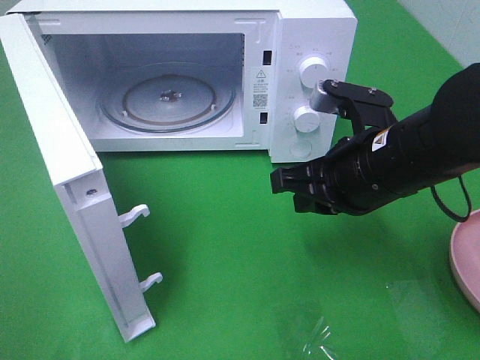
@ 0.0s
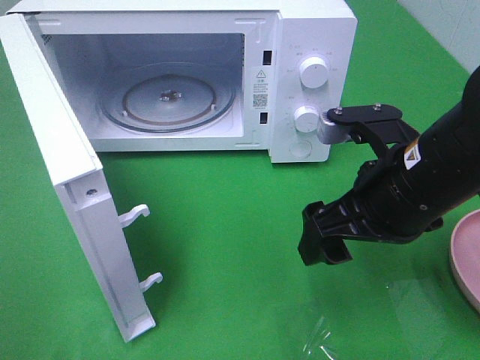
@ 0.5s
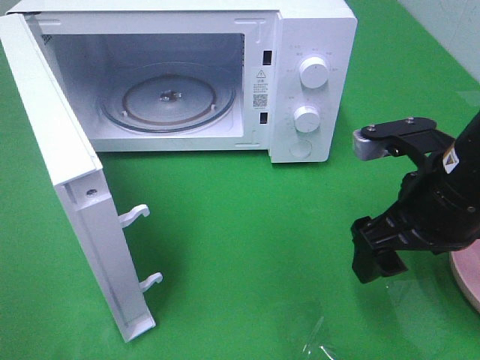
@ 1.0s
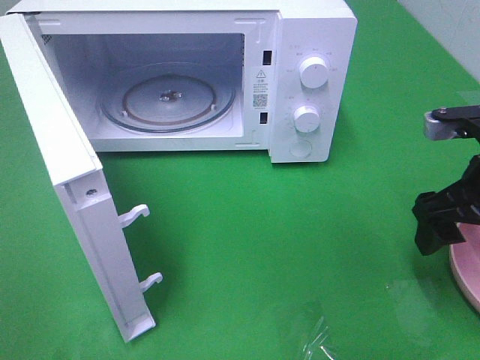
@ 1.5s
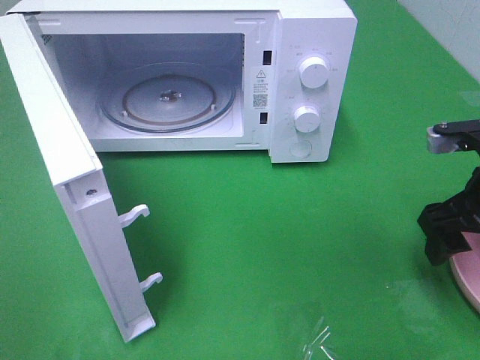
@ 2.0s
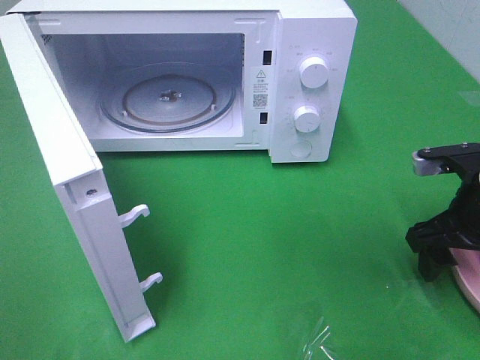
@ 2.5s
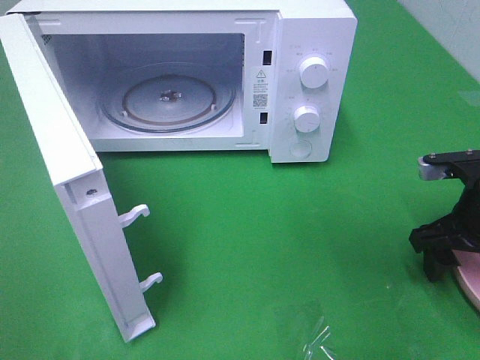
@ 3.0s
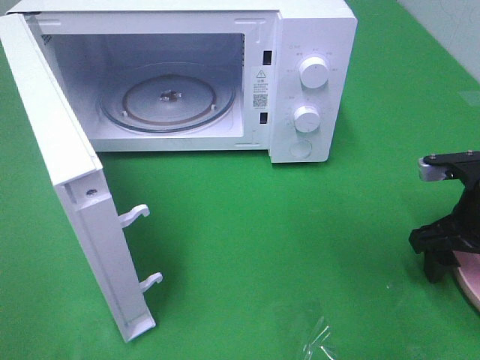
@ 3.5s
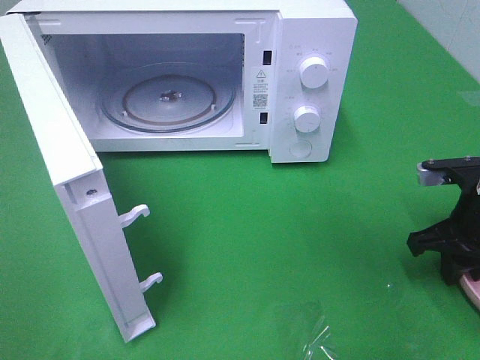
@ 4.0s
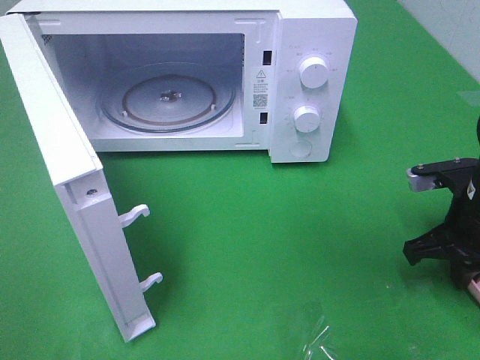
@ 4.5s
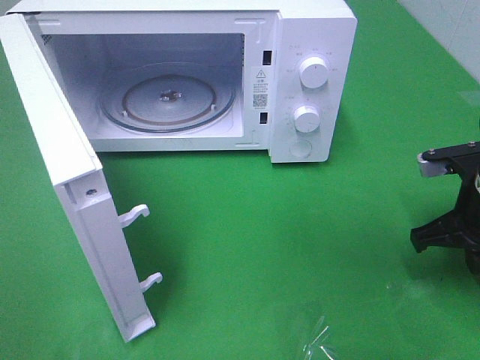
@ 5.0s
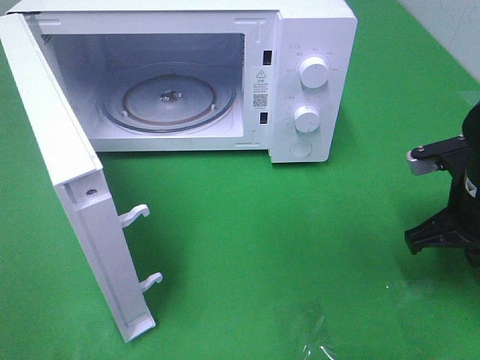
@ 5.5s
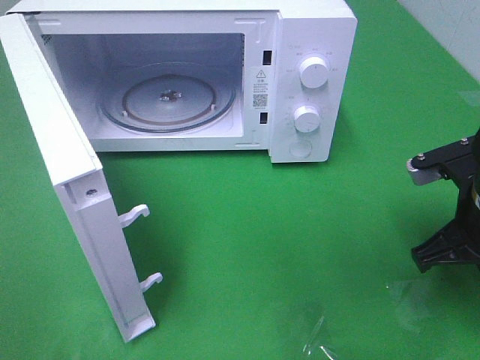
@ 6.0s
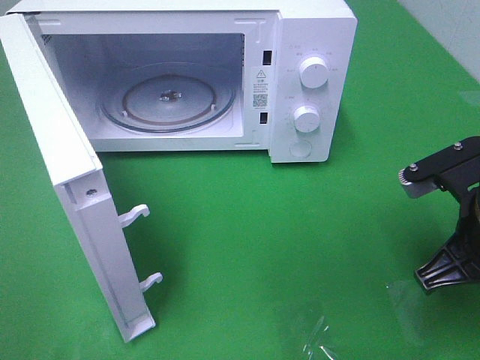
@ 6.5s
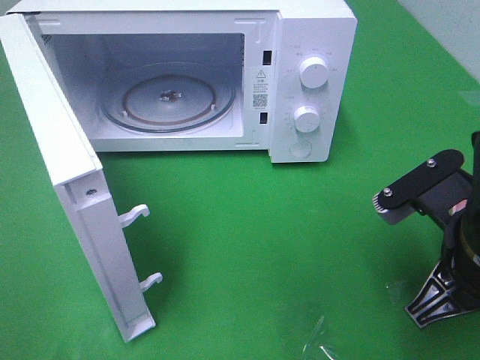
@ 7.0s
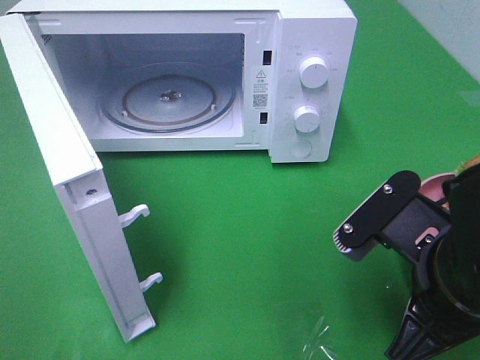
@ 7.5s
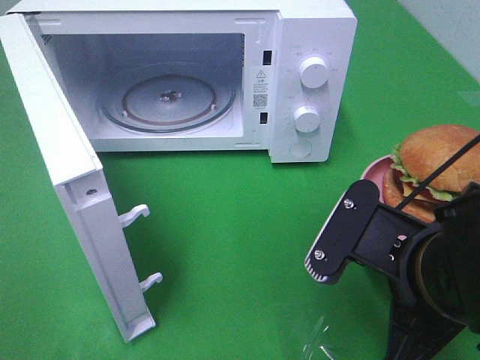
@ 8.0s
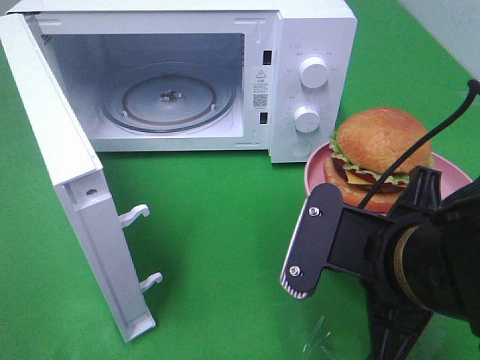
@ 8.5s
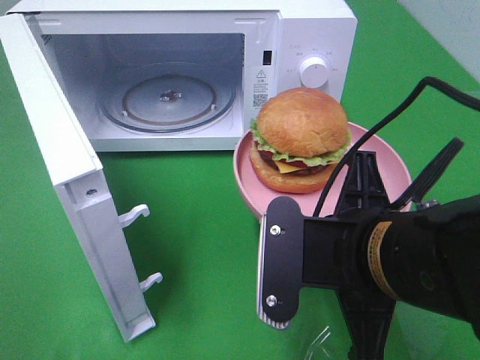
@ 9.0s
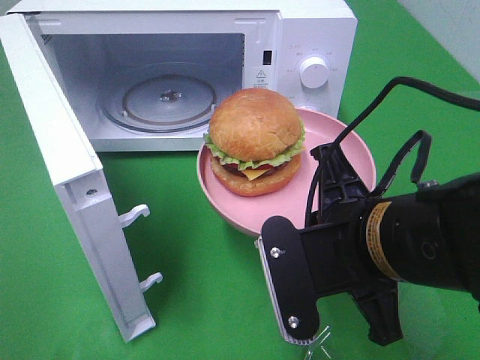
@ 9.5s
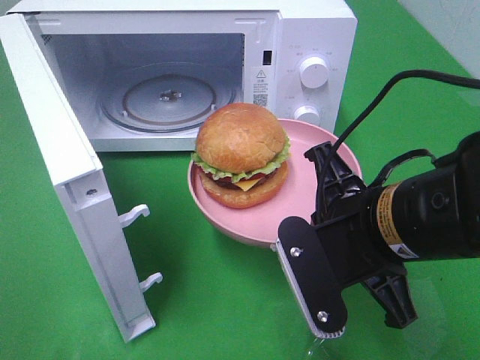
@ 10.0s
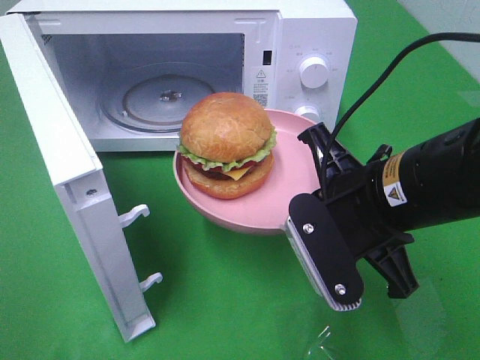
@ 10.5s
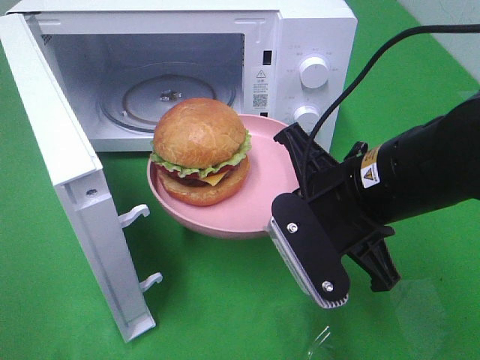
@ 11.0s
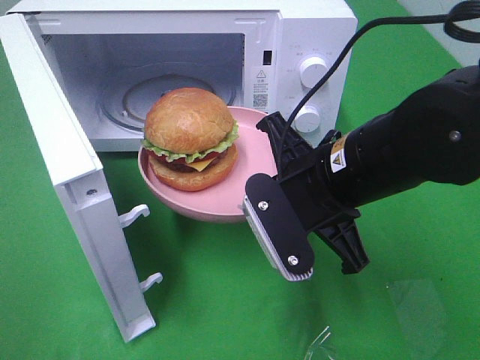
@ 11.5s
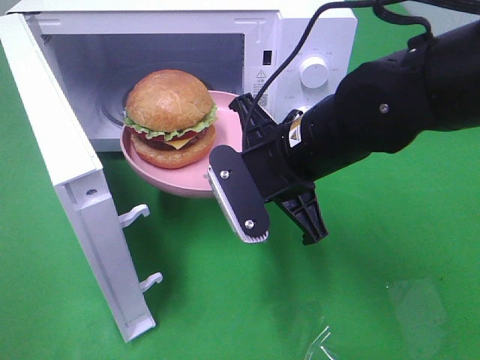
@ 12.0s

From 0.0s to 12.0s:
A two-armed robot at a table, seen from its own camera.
Task of the whole recording: Heat the burger.
Step, from 0.0s to 4.5s: Right hand: grab the plate with the hamburger.
From 0.0s to 2.0s: The right gripper travels to the right by approximately 15 cm, and opens its fingers.
From 2.0s to 4.0s: The right gripper moves downward, about 5 cm, and closes up.
From 4.0s to 6.0s: The right gripper goes approximately 5 cm upward.
From 6.0s to 8.0s: The right gripper is displaced to the left and backward by approximately 15 cm.
From 10.0s to 12.0s: The right gripper goes some 10 cm forward and to the left.

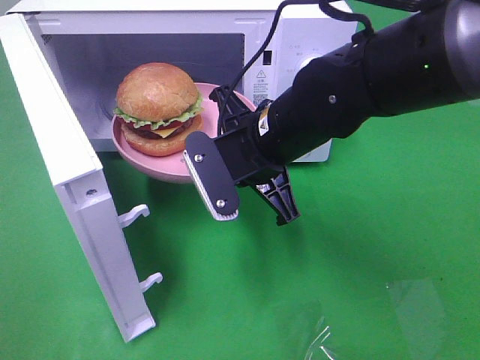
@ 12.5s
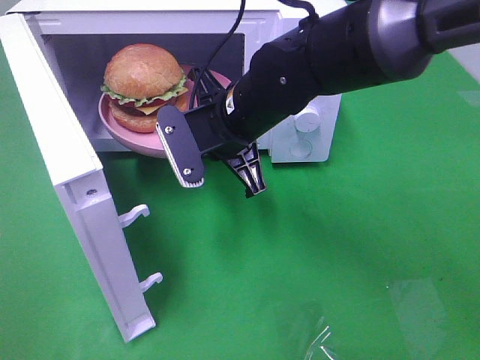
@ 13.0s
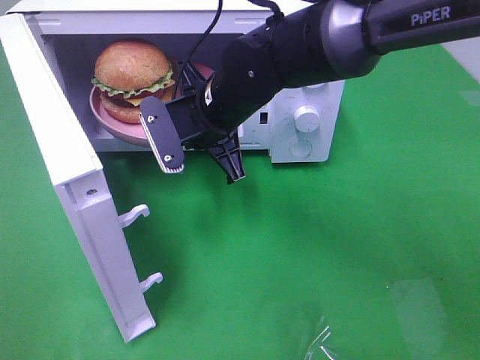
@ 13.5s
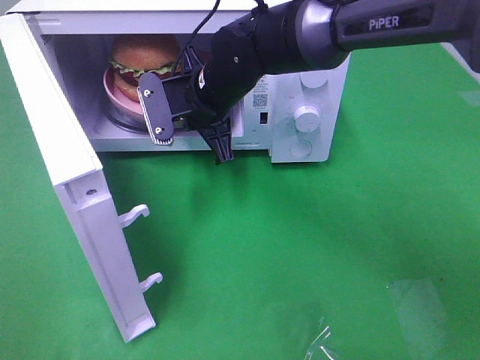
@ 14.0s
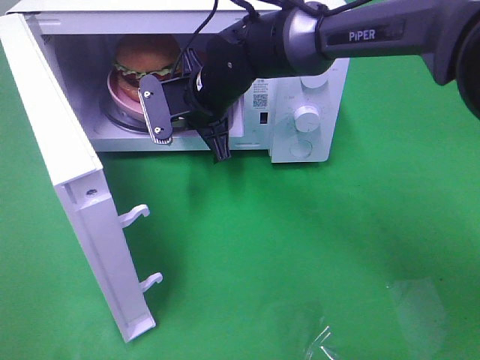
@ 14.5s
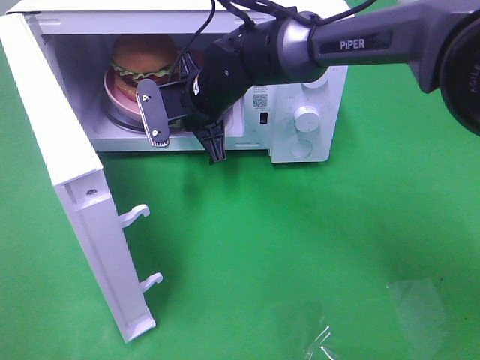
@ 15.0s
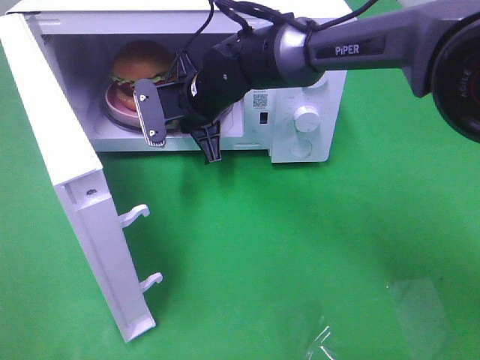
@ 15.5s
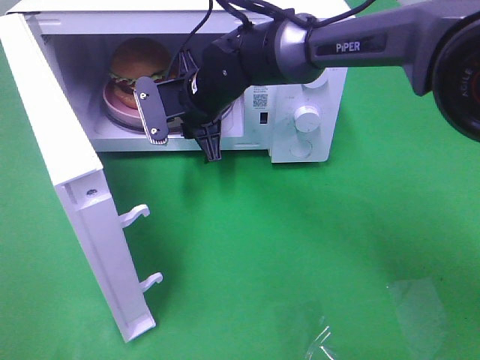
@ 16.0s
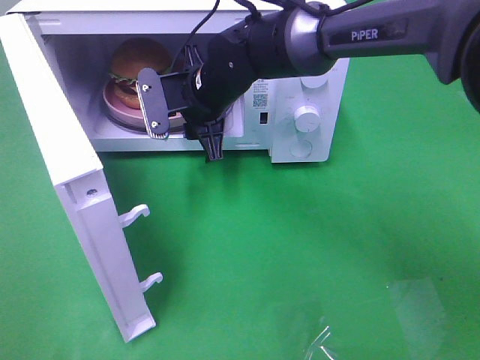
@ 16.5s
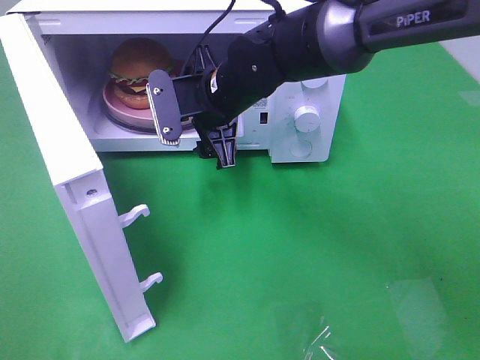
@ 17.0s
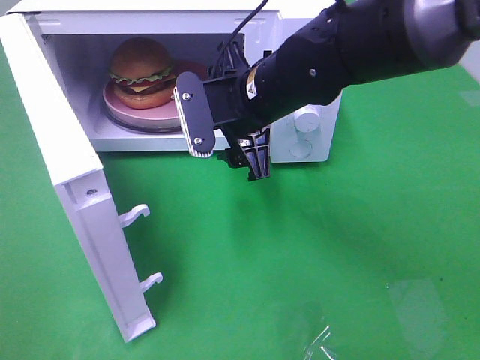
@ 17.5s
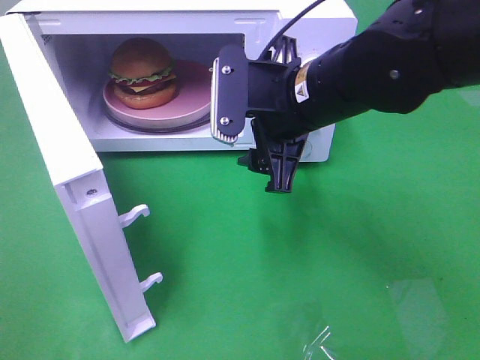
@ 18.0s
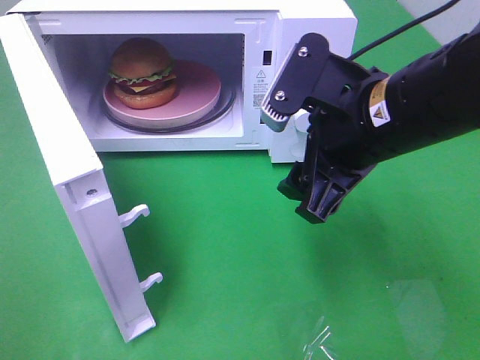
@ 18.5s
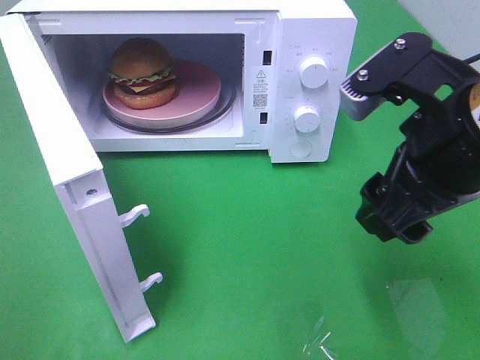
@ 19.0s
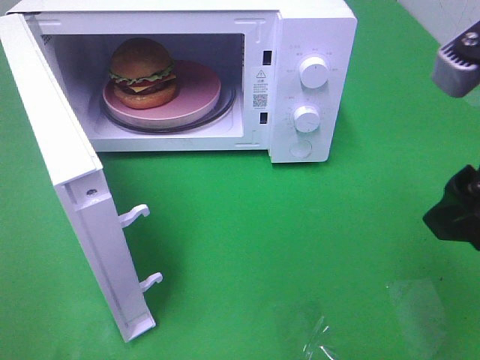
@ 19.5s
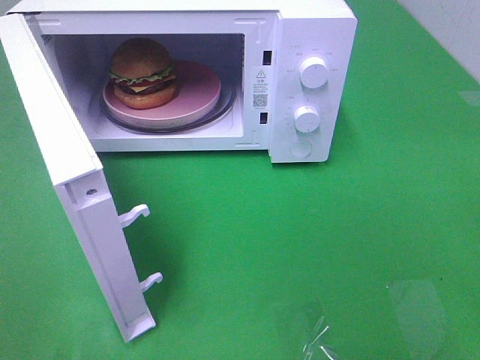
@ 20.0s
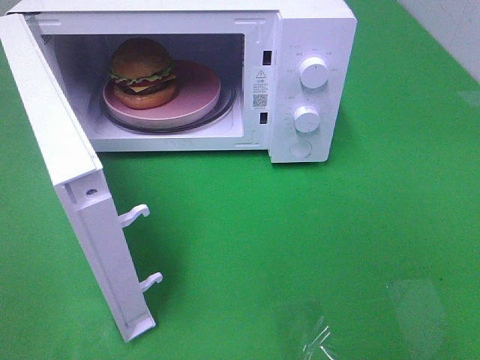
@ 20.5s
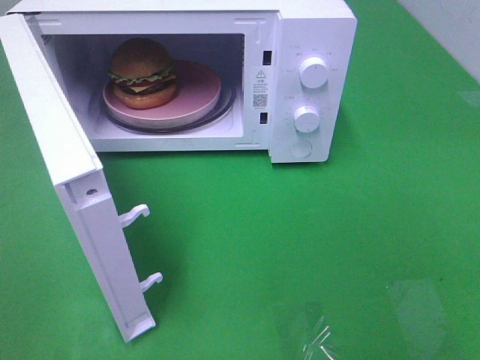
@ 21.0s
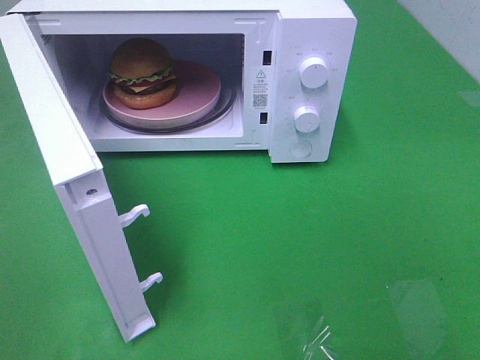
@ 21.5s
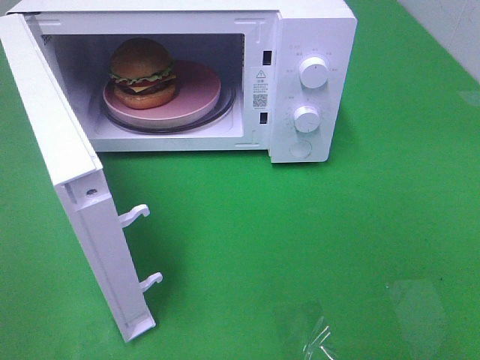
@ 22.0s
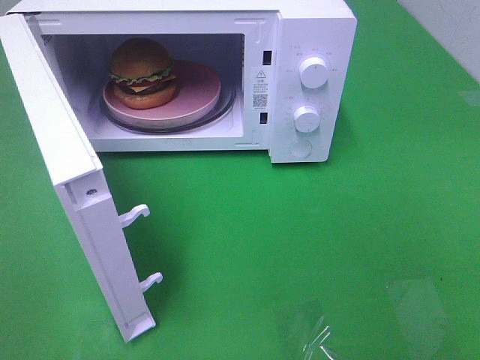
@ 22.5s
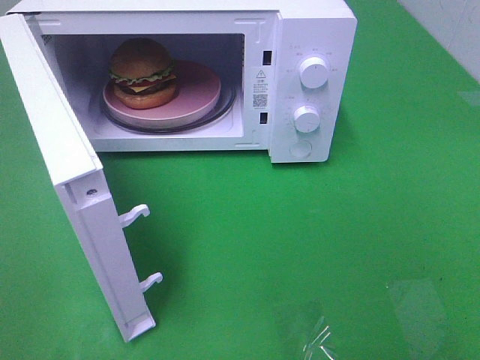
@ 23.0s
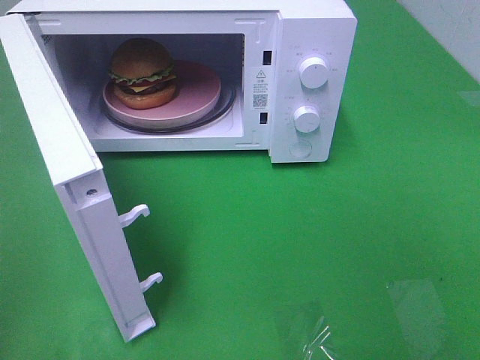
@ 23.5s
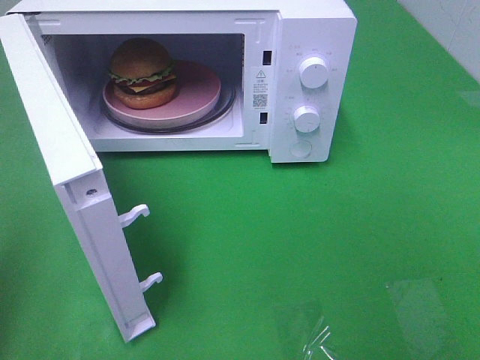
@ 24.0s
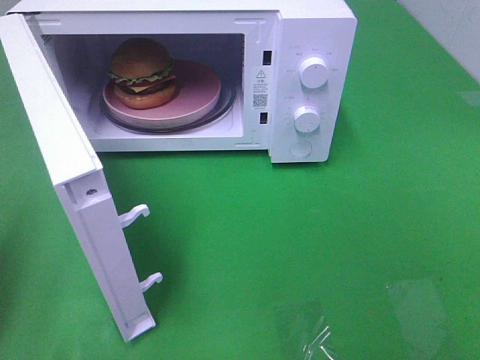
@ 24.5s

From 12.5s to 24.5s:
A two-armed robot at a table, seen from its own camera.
Task of the whole recording: Heat the burger.
Step, from 12.5s to 16.5s: Right hand: place the plate in the microwave.
From 12.5s to 14.5s: The right gripper travels forward and to the left by about 15 cm.
From 14.5s to 16.5s: The right gripper opens.
From 16.5s to 18.5s: The right gripper goes roughly 25 cm backward, to the right and upward.
From 18.5s to 20.5s: The right gripper shifts about 25 cm backward and to the right.
From 22.5s to 24.5s: The left gripper heads forward, covering about 15 cm, and closes.

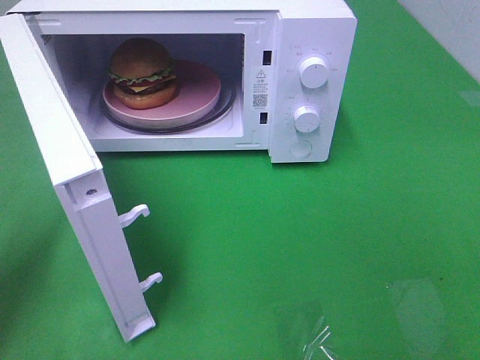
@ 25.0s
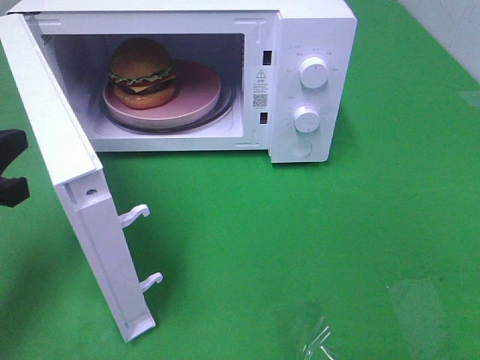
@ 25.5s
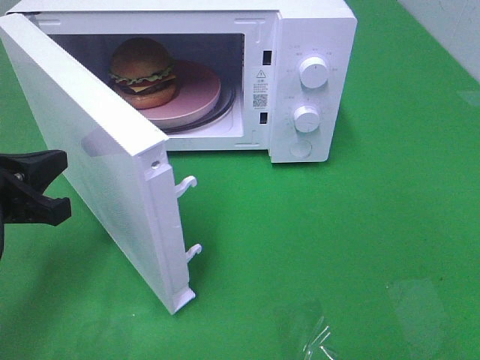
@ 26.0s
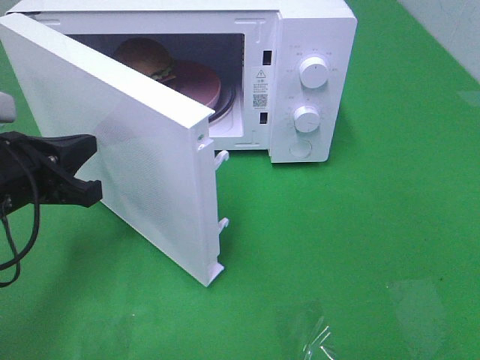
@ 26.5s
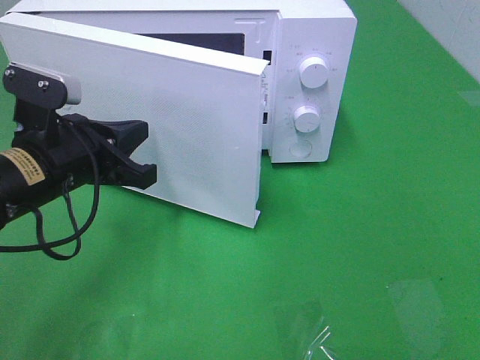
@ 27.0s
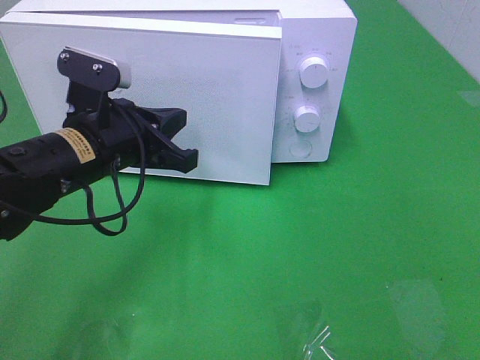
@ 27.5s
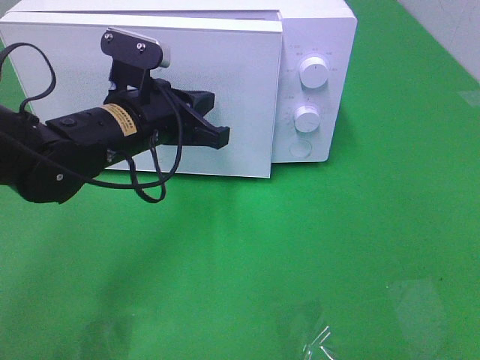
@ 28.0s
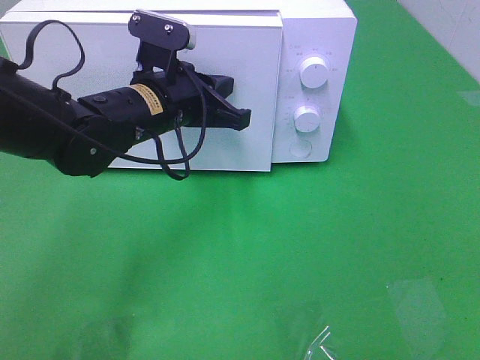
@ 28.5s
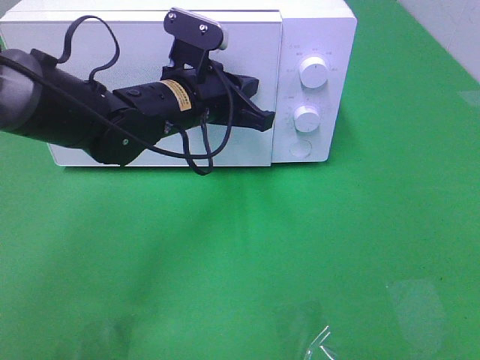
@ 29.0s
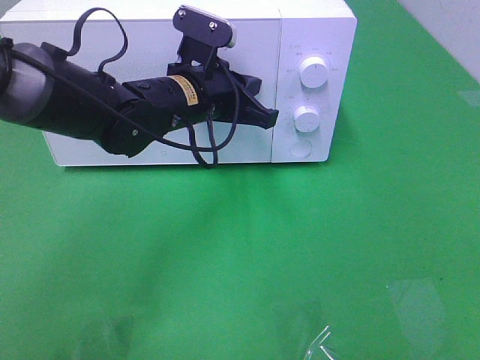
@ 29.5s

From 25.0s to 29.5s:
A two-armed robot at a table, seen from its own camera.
Task of the whole recording: Heat the burger.
From 25.0s to 27.0s: The left gripper heads to the right and forward, covering some 15 cm.
From 27.0s to 29.5s: The left gripper travels to the right and forward by about 15 cm.
